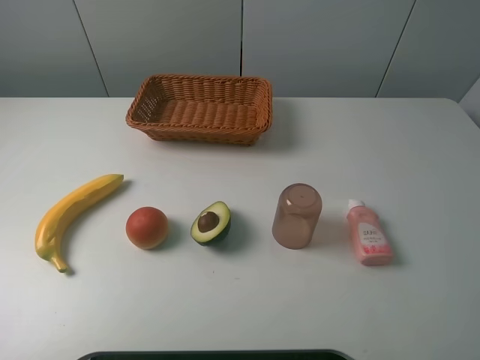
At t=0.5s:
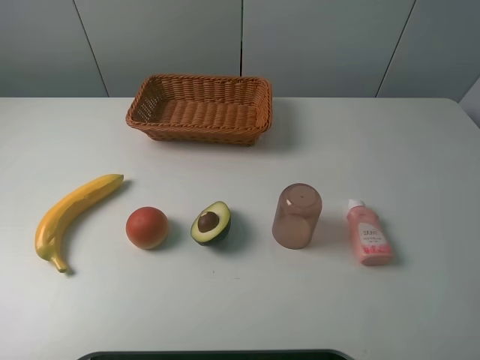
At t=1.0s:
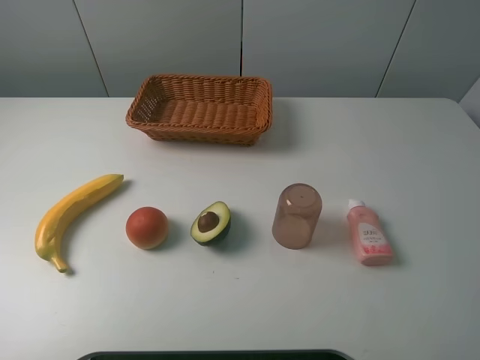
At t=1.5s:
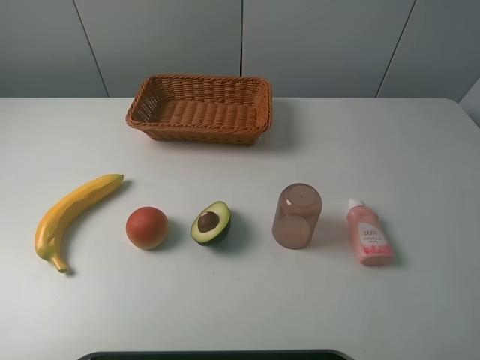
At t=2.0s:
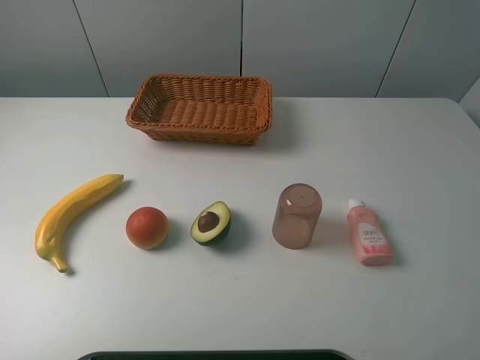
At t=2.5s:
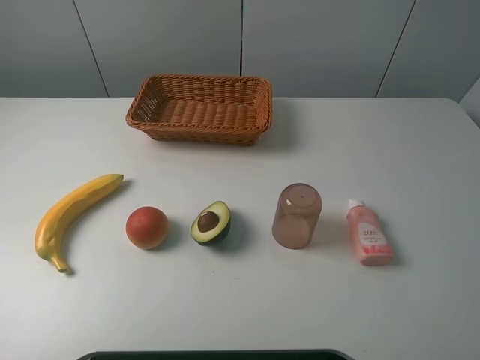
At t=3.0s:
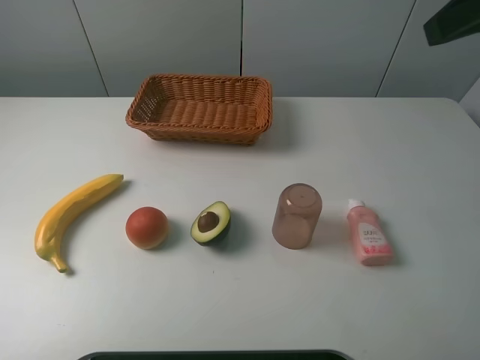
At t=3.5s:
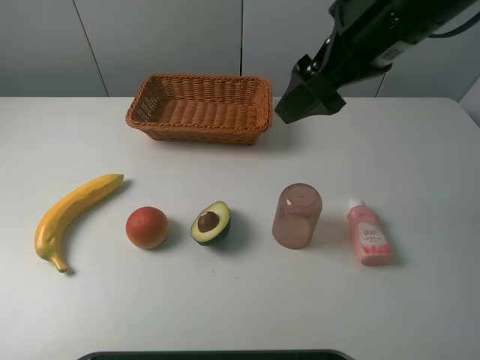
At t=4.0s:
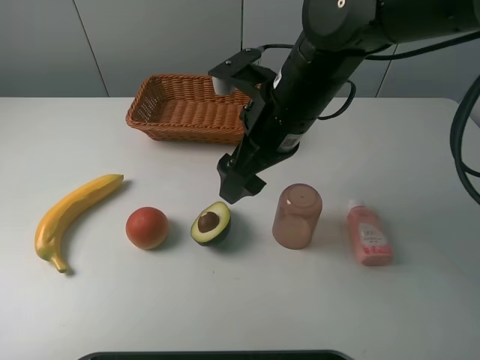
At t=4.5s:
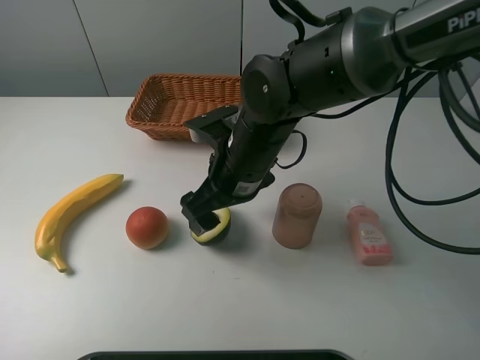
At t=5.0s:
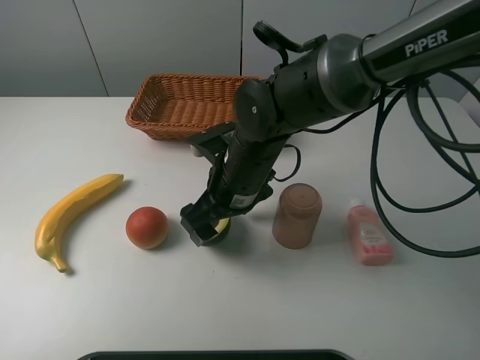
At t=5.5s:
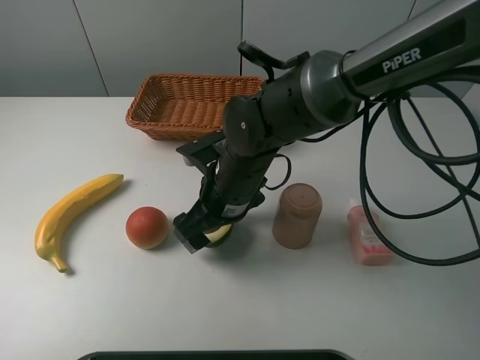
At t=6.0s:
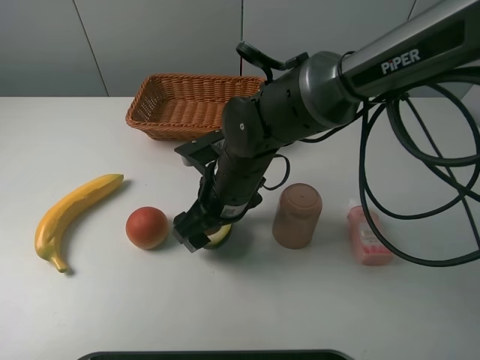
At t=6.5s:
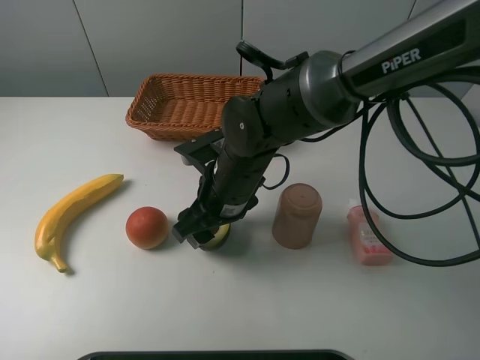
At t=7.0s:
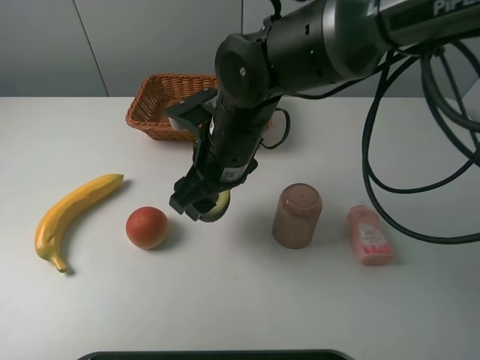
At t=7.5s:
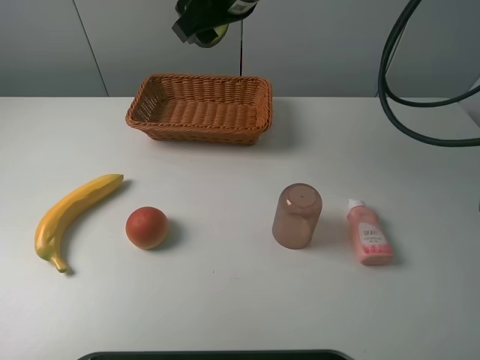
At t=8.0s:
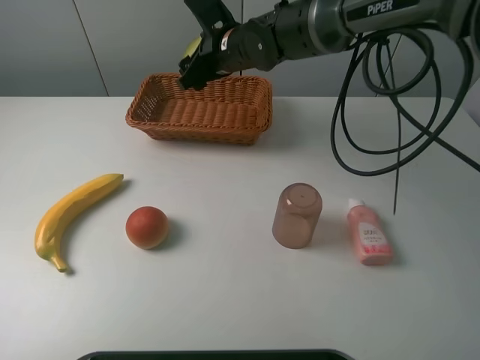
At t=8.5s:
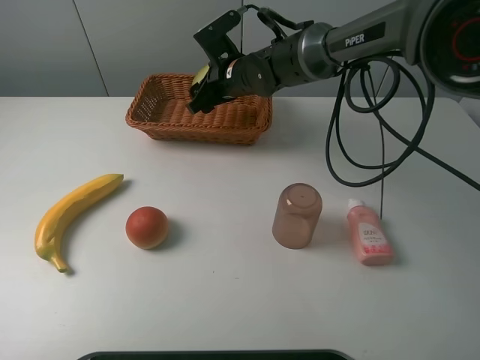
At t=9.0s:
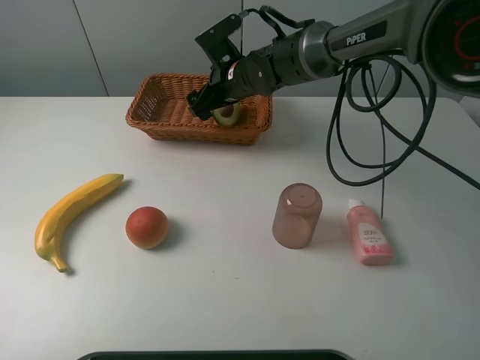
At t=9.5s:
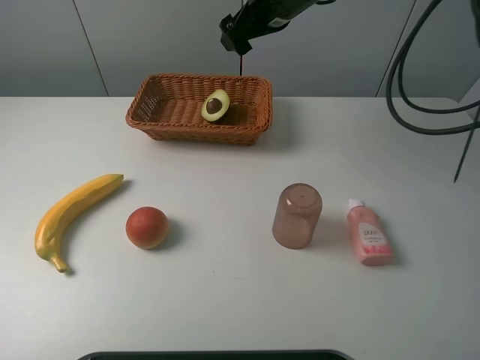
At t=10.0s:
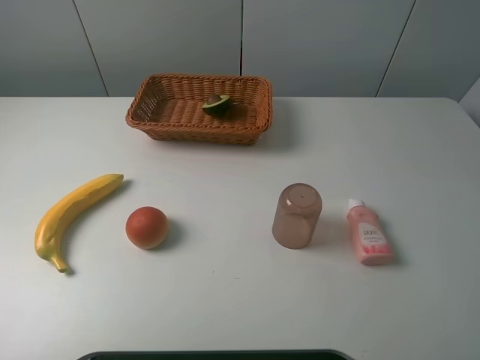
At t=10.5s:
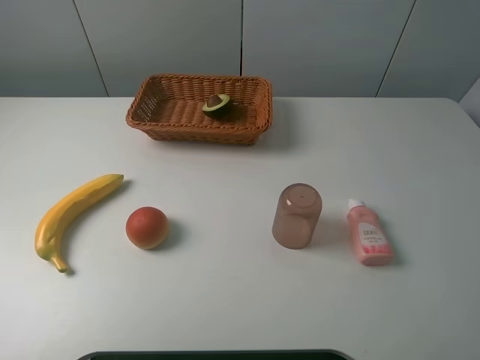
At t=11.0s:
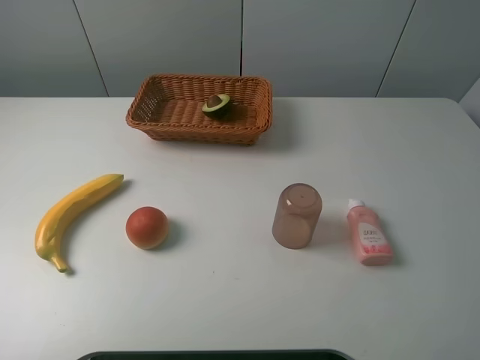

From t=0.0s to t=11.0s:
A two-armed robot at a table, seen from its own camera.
Task of the whole recording: randomly pick up an item from the table and put it in the basket.
Step, from t=0.0s to t=6.0s: Grasp the avocado with the right gripper.
Step, from t=6.5s to t=9.0s: Place the avocado into the basket with the right gripper.
From t=0.0s to t=2.0s: Both grippers stay about where they are.
From t=2.0s to t=3.5s: The right gripper travels forward and to the left by roughly 30 cm.
From t=3.5s to t=5.5s: The right gripper heads downward and to the left, covering approximately 25 cm.
From t=5.5s to t=7.5s: The right gripper shifts some 25 cm upward and forward, and closes.
From t=7.5s to t=9.0s: The right gripper shifts some 20 cm downward and forward, and opens up.
From t=9.0s to t=11.0s: The right gripper is displaced backward, to the right and upward by some 50 cm.

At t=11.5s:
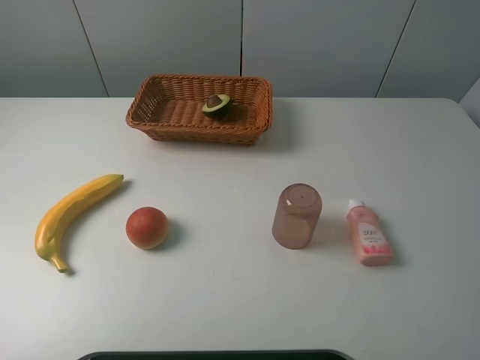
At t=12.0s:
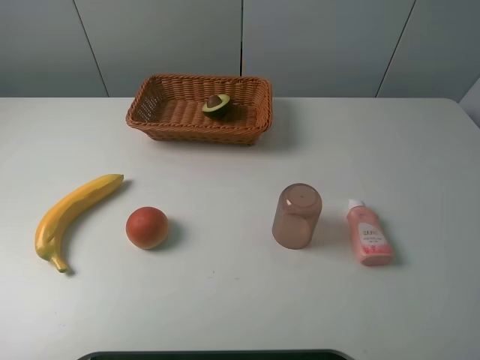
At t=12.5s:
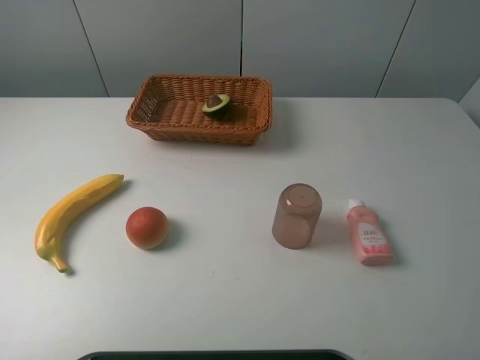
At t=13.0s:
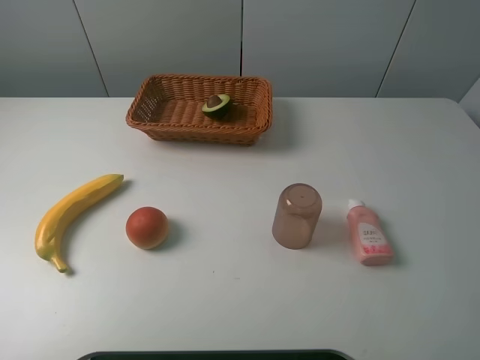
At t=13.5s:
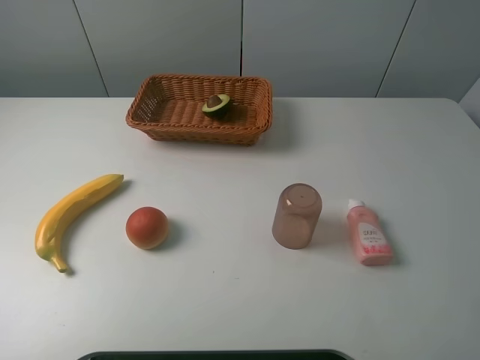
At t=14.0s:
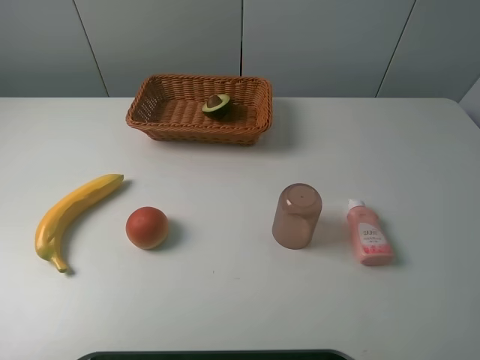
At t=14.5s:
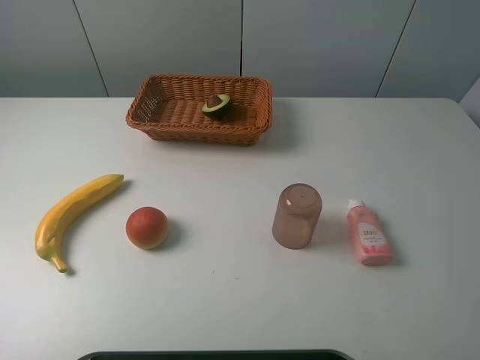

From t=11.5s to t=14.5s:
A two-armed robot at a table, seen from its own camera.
Task of the whole recording: randomly pick up an item from the table and put it in the basket.
From t=13.0s to t=14.5s: Neither gripper changes place.
